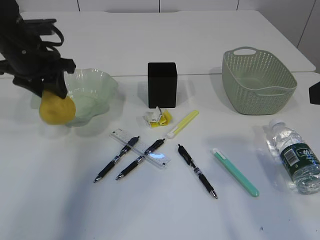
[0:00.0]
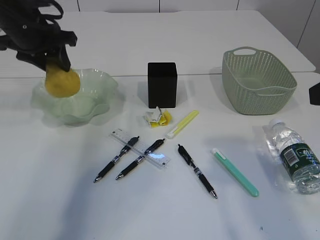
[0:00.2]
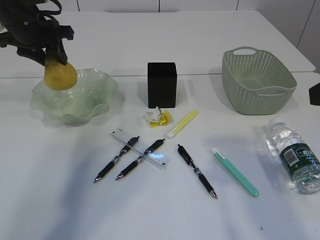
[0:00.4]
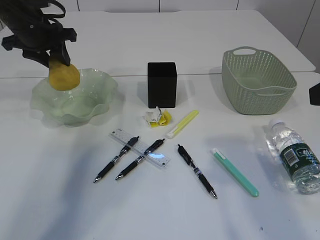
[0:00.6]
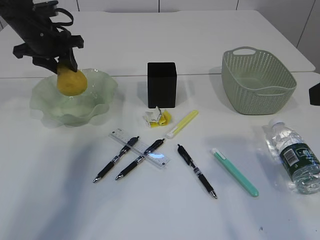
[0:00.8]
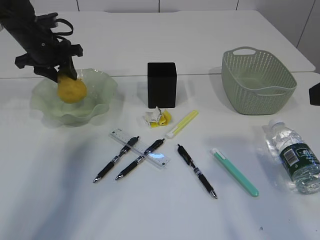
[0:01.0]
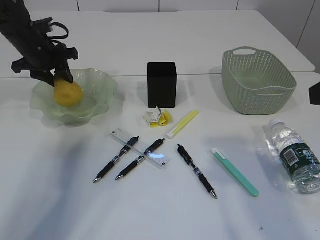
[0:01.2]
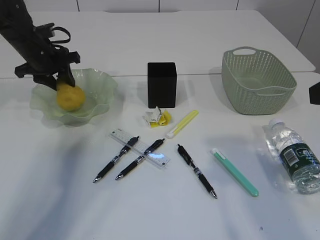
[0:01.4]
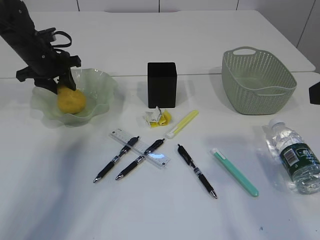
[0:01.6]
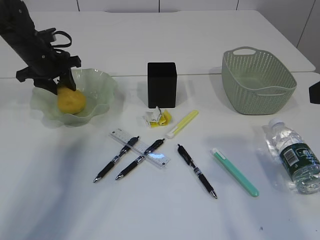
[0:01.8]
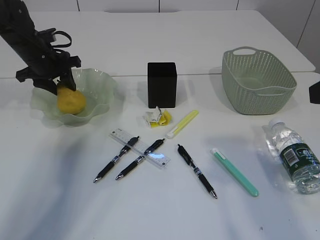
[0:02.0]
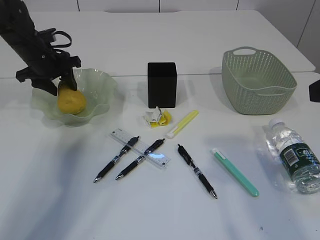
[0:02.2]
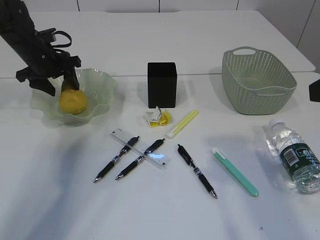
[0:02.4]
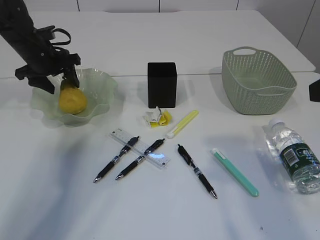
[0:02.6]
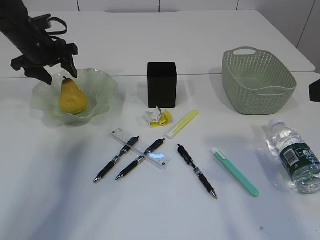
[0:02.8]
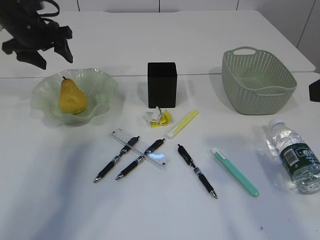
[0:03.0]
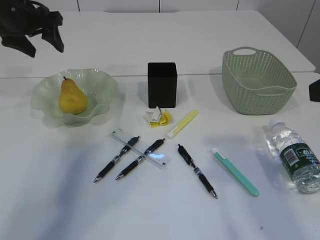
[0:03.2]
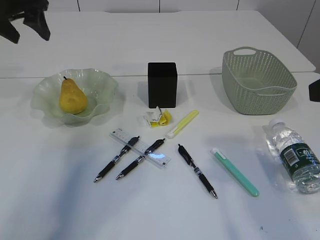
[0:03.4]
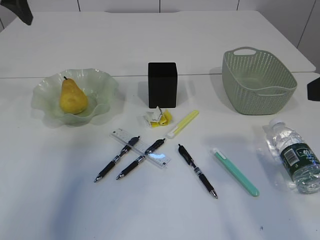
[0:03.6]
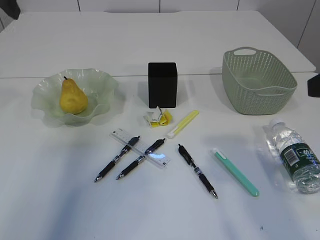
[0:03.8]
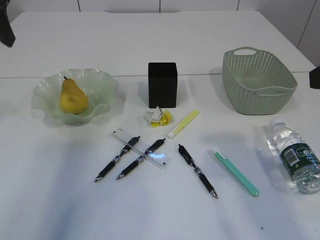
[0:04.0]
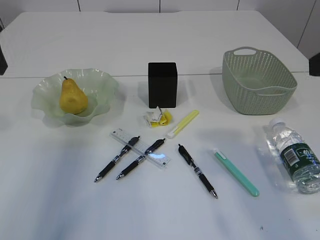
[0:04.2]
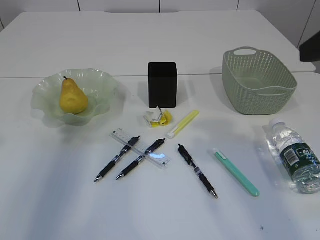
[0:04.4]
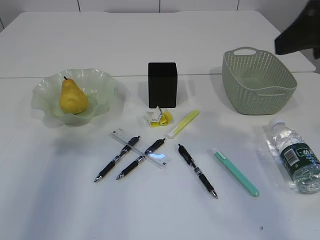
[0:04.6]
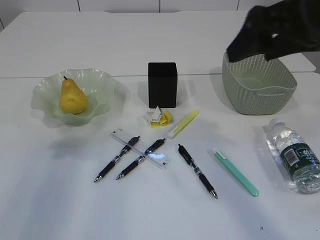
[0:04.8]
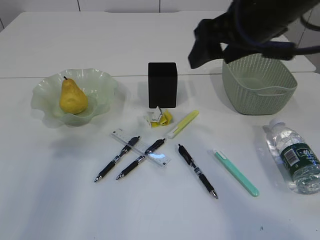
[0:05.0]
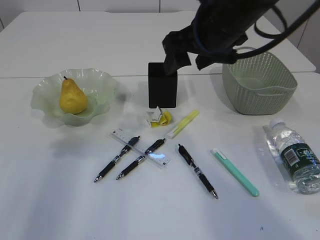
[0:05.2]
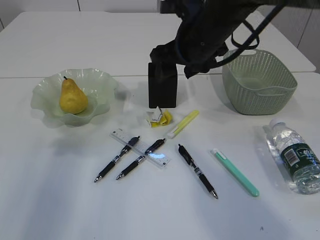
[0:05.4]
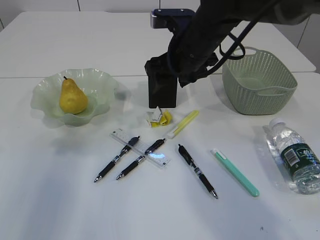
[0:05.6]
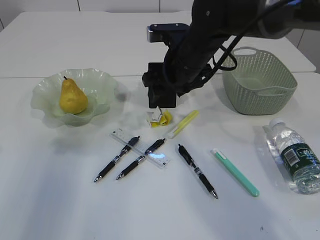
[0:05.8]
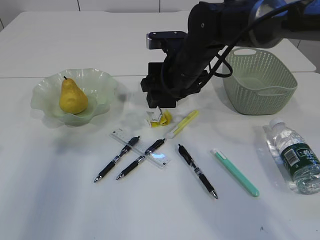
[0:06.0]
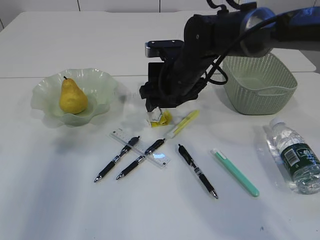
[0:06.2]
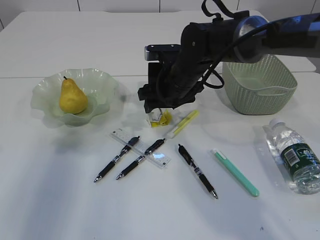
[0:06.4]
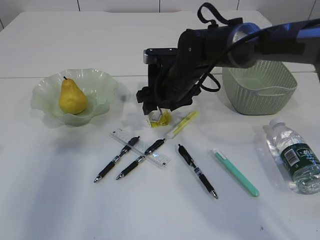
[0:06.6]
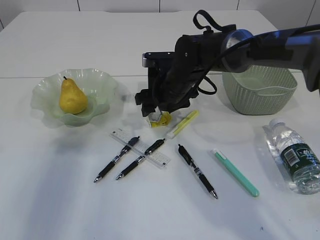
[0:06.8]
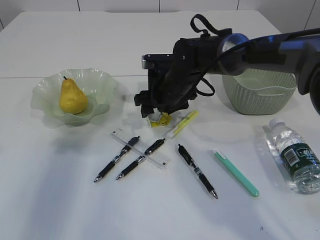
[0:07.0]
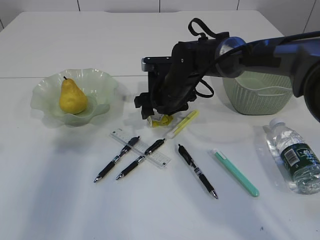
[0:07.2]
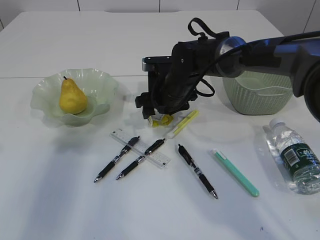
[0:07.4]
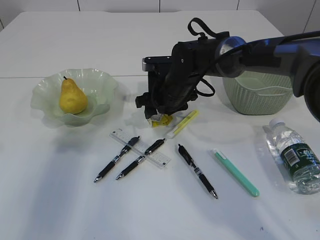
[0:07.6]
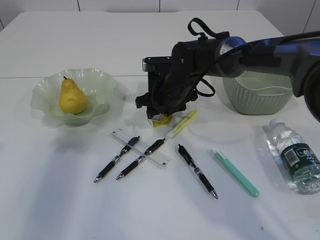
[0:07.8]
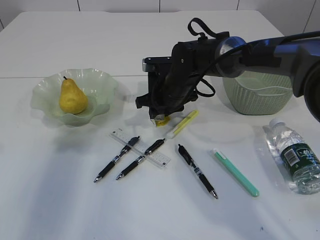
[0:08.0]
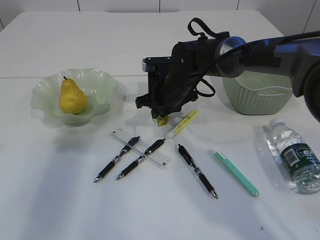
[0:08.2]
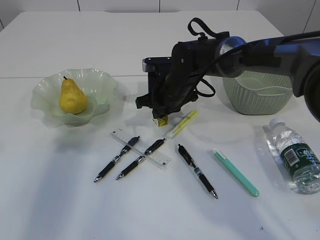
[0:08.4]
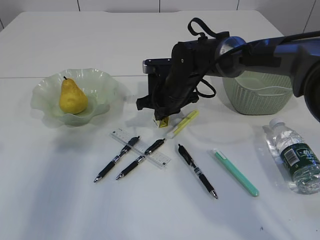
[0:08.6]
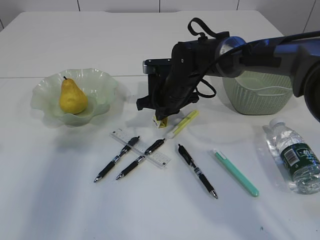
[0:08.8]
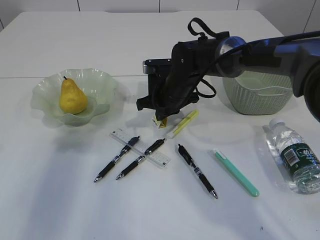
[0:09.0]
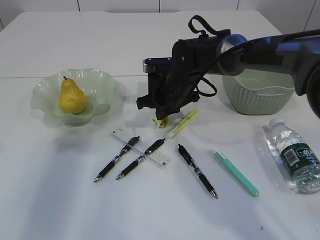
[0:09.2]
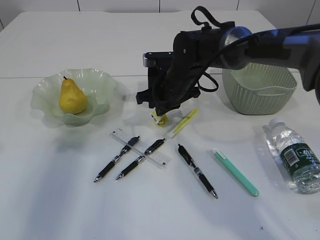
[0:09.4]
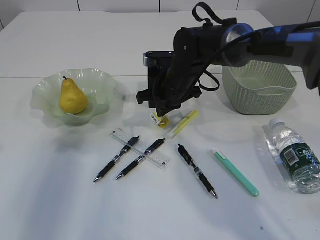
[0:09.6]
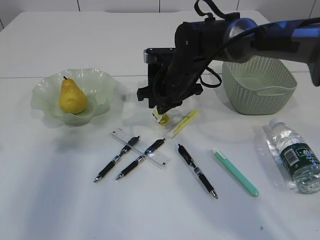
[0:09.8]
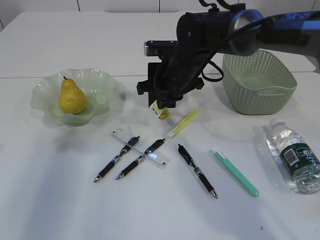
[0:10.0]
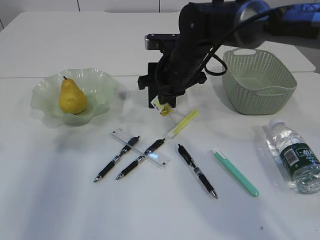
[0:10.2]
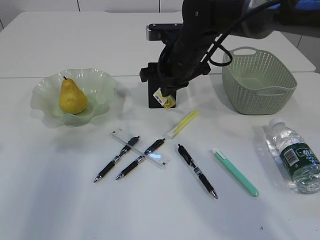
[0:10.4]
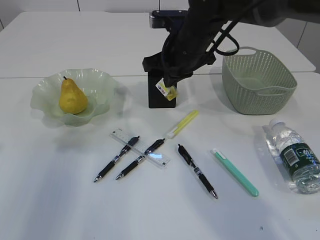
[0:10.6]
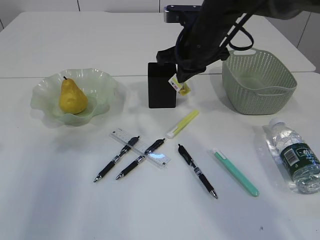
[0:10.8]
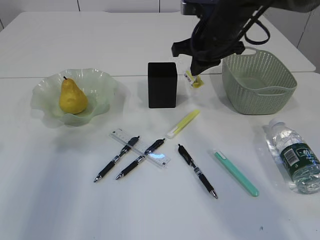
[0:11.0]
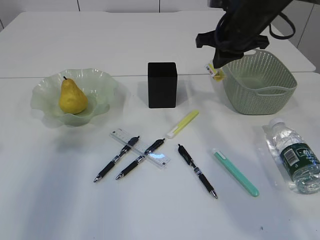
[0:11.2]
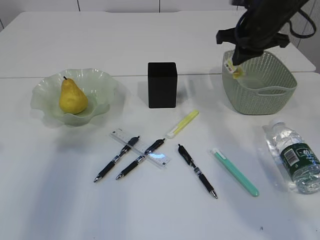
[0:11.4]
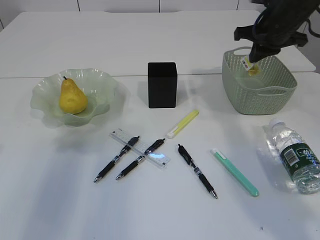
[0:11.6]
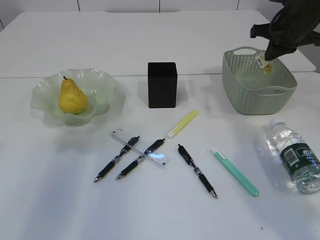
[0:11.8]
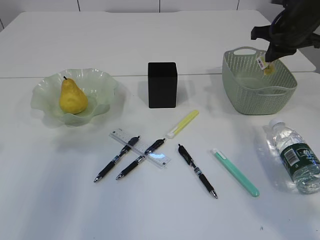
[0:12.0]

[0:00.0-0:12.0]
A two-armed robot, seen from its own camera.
Step, 0:00.4 to 0:02.8: Place the pear in the plate.
Step, 0:03.0 to 0:10.2: Pick up the plastic.
0:00.0 to 0:01.6: The left gripper goes approximately 10 cm forward and downward.
0:01.6 to 0:03.0: The left gripper heads upward, covering about 5 cm, and opens its fingers.
0:03.0 to 0:04.4: The left gripper is displaced backward and upward by about 20 cm.
0:04.4 to 0:06.0: The right gripper goes some 30 cm forward, to the left and downward.
0:06.0 to 0:07.6: The right gripper heads downward, covering about 5 cm.
0:07.6 to 0:09.0: The right gripper closes its fingers.
0:09.0 to 0:10.4: The right gripper moves upward, approximately 10 cm.
0:10.4 to 0:12.0: The right gripper moves to the right, roughly 20 cm.

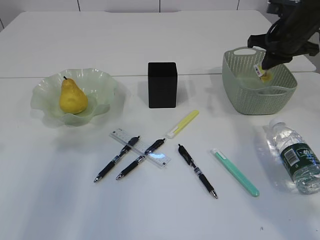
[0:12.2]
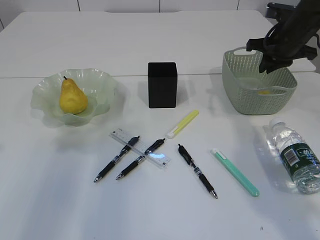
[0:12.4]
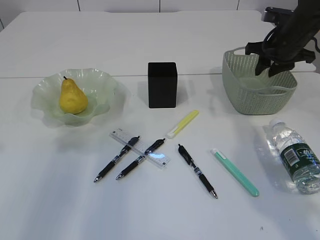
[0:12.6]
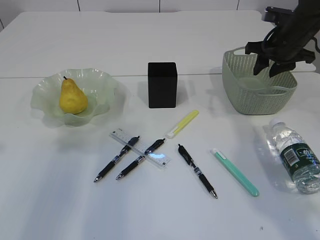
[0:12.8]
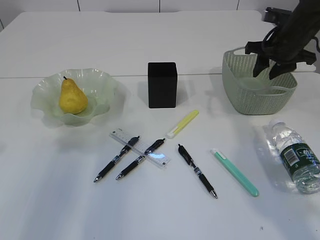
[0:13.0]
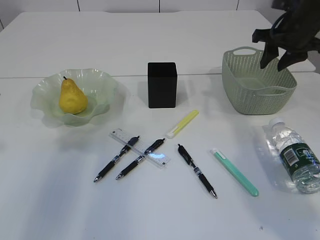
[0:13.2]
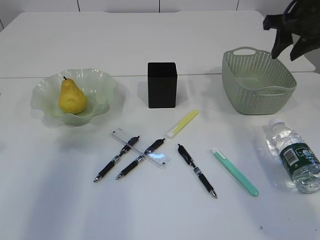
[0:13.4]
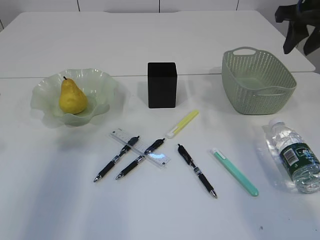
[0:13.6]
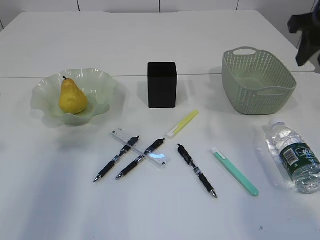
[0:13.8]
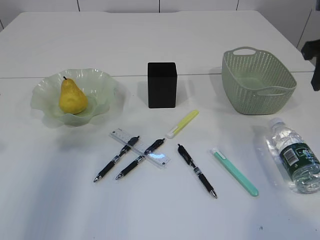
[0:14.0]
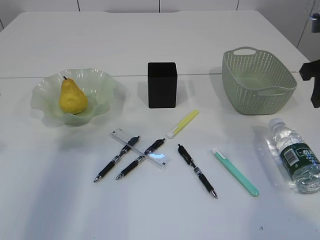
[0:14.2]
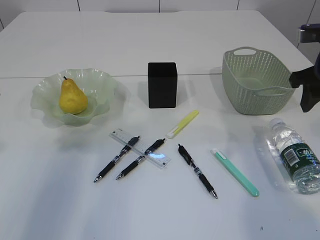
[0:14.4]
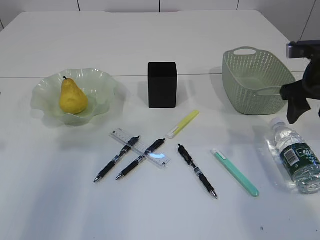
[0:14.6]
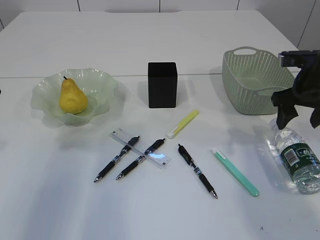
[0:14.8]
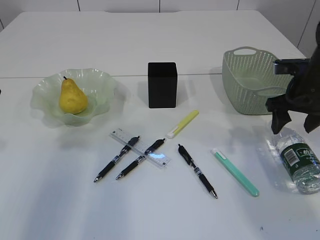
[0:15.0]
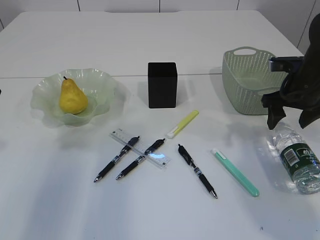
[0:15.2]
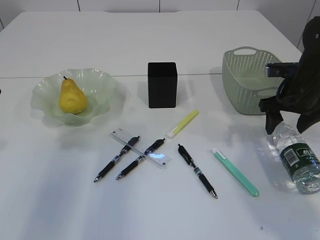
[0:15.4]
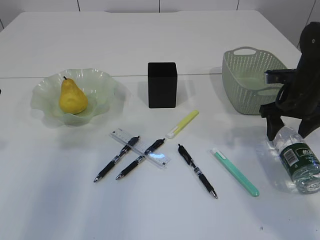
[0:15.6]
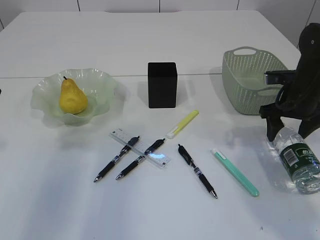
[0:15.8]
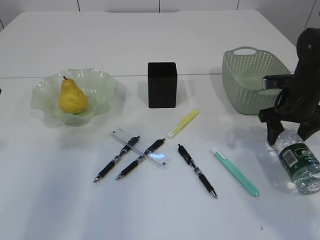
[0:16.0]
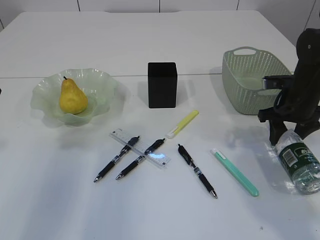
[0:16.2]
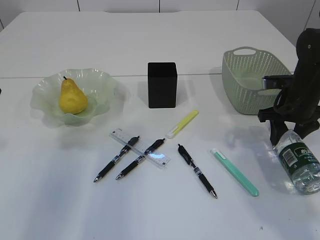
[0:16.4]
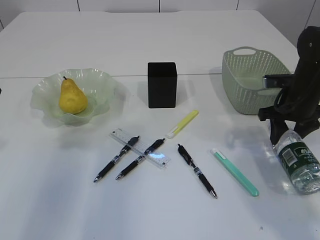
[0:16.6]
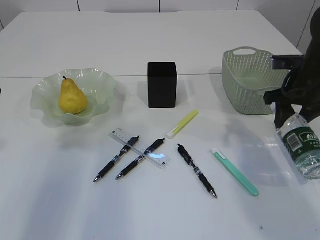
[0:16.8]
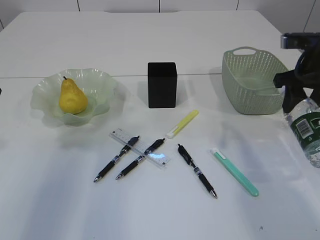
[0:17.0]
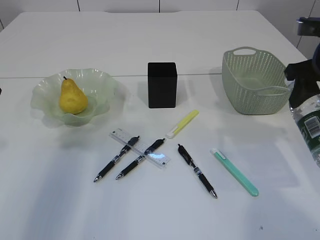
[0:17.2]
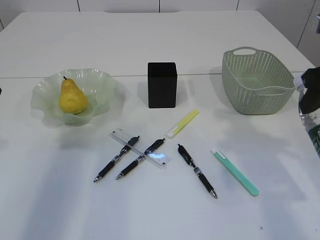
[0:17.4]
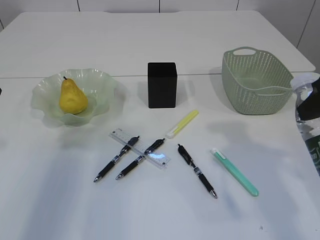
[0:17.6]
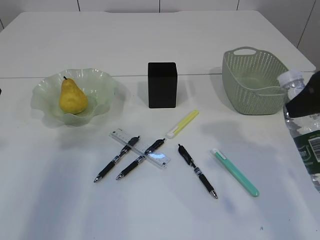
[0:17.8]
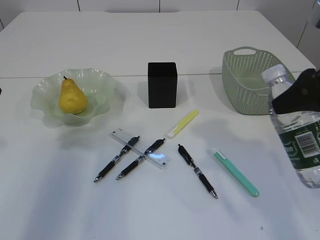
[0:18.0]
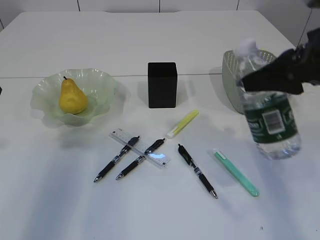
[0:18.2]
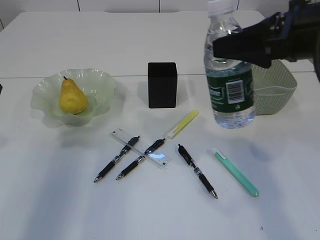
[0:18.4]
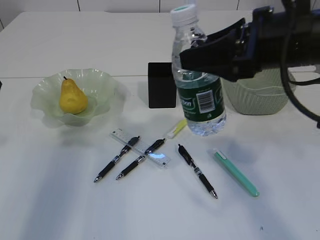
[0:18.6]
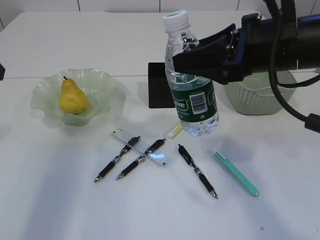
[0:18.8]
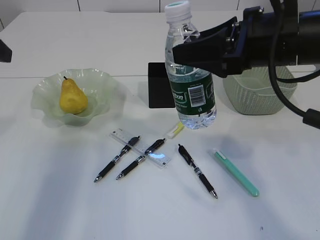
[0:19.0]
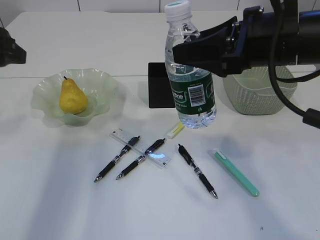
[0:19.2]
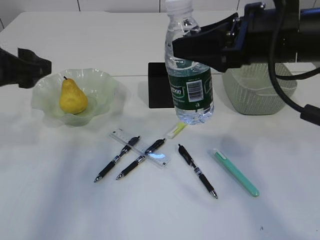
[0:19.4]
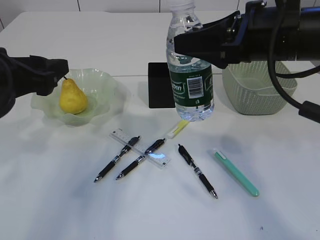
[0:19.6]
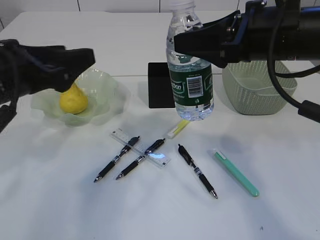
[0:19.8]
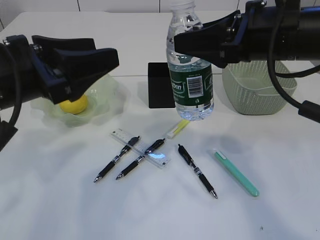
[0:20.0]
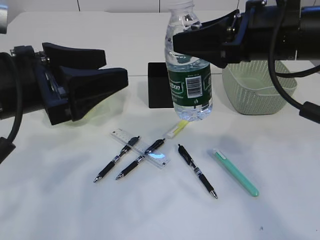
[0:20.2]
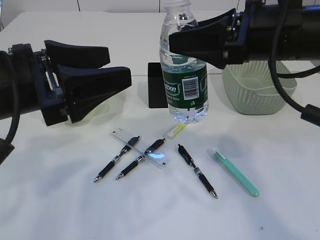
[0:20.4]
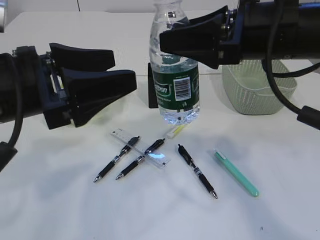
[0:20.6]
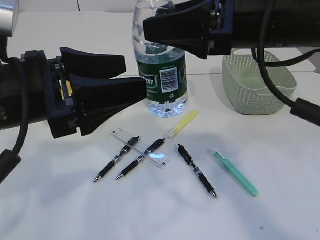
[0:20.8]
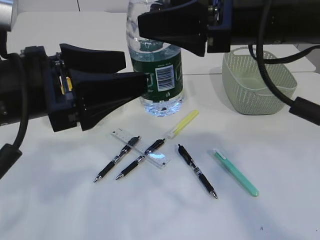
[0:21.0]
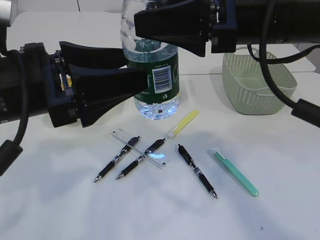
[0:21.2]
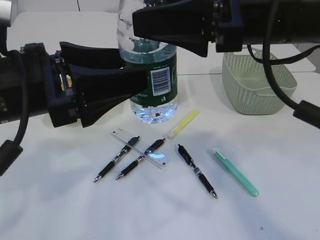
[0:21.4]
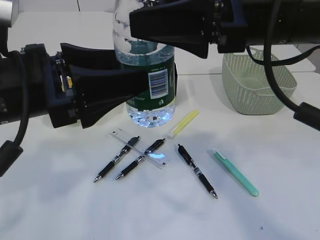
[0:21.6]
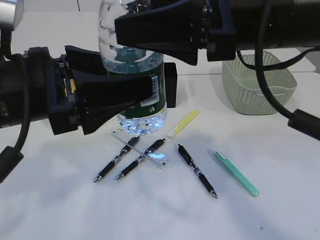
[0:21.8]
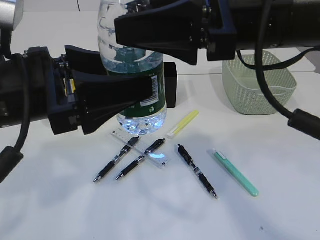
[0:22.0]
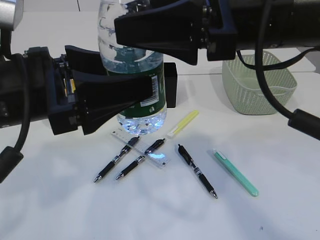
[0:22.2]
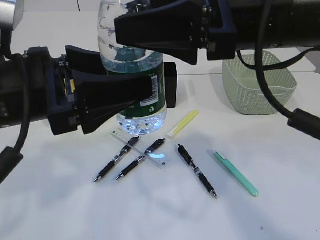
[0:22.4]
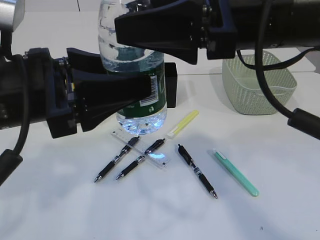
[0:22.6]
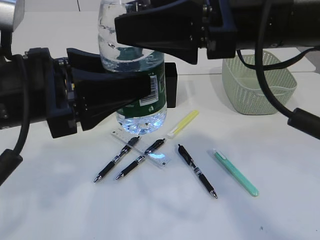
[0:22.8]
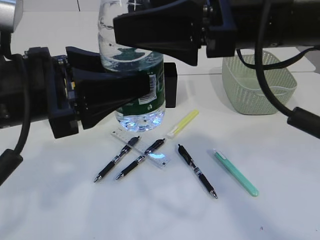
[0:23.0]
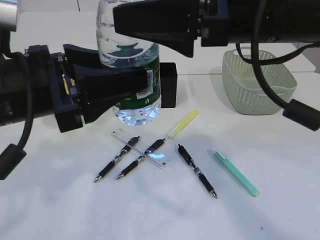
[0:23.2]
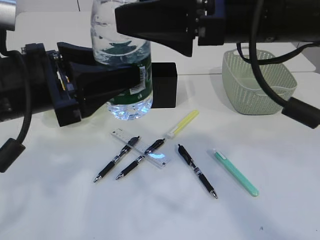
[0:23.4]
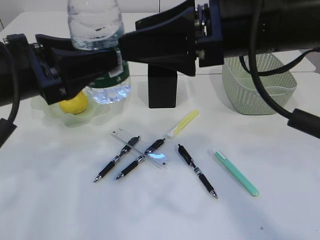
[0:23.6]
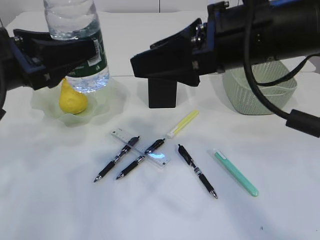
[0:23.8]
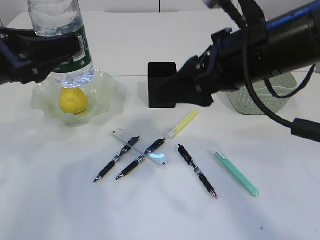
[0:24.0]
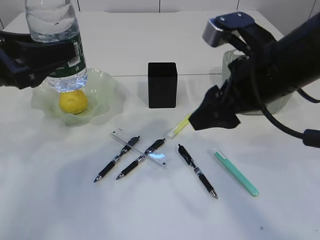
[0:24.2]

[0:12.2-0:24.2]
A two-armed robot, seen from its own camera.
Step, 0:13.4 to 0:17.0: Pick up the bottle with the right arm.
Step, 0:17.2 to 0:23.8: Pick up the bottle with the left arm.
0:12.2 to 0:13.8: The right gripper travels backward and upward by about 15 cm, and opens its fingers.
0:13.8 to 0:15.2: The right gripper shifts about 15 cm downward, and opens its fingers.
0:15.2 to 0:16.6: The right gripper closes up.
0:16.6 to 0:18.2: The right gripper travels upward and backward by about 20 cm.
0:18.2 to 0:19.8: The left gripper travels to the right and downward by about 10 cm; the right gripper moves to the left, approximately 5 cm.
0:19.8 to 0:21.2: The left gripper changes place by approximately 5 cm, while the right gripper shifts by roughly 5 cm.
0:21.2 to 0:22.6: The left gripper closes.
0:22.6 to 0:24.2: The right gripper is displaced downward by approximately 5 cm. Meanwhile the left gripper is displaced to the left and forward by some 10 cm.
